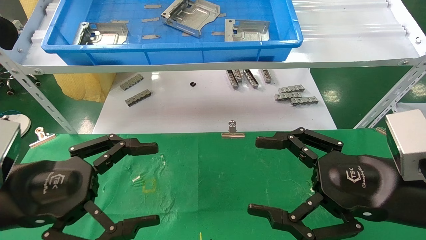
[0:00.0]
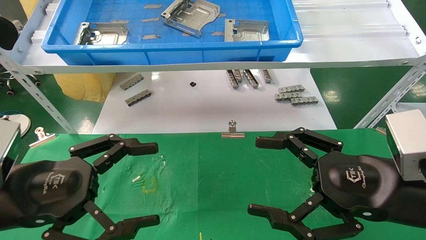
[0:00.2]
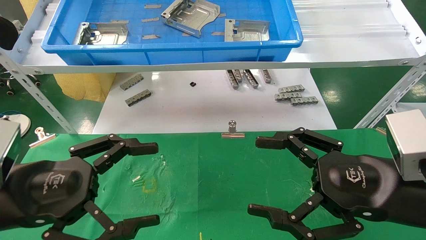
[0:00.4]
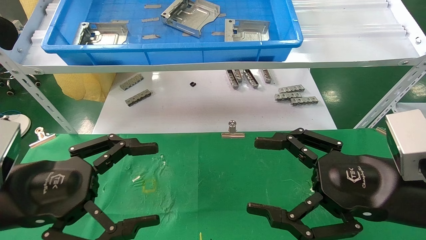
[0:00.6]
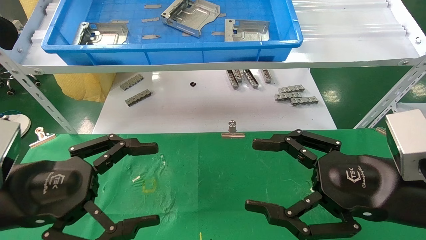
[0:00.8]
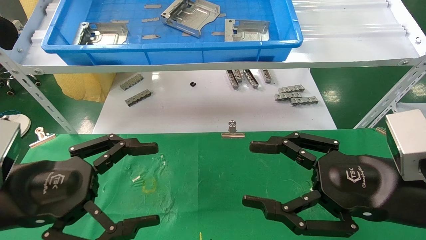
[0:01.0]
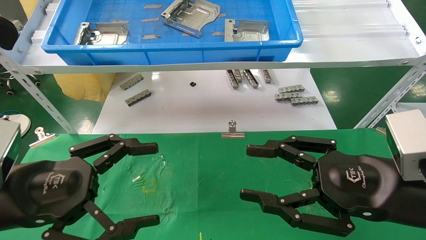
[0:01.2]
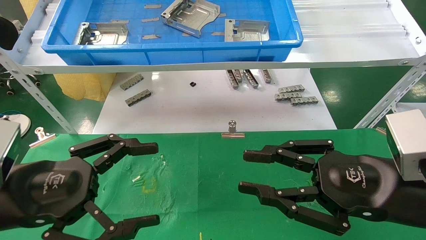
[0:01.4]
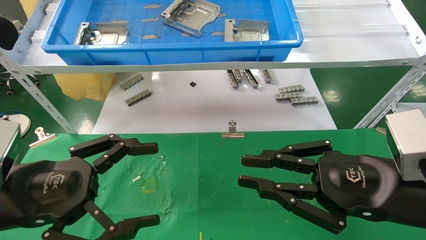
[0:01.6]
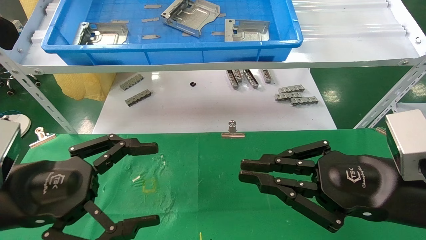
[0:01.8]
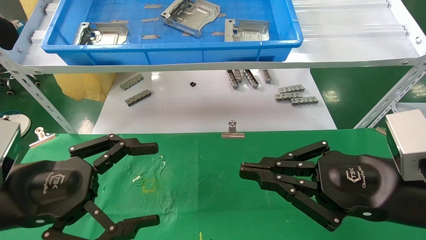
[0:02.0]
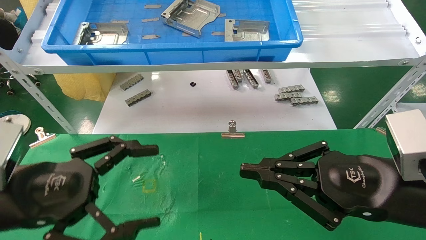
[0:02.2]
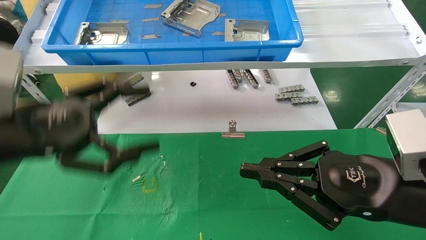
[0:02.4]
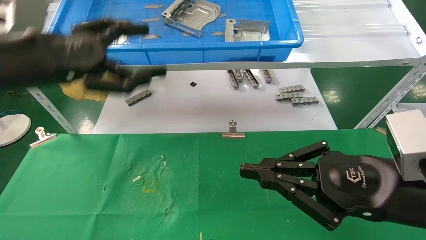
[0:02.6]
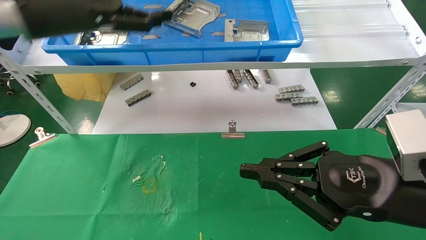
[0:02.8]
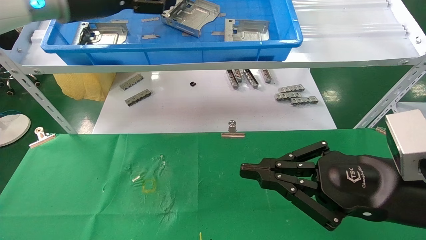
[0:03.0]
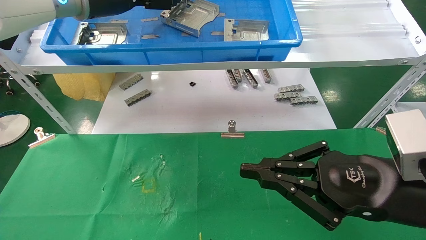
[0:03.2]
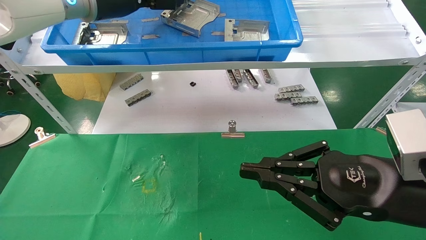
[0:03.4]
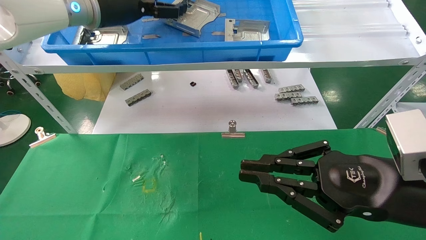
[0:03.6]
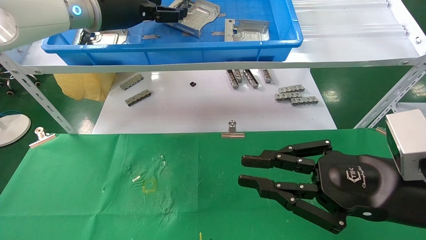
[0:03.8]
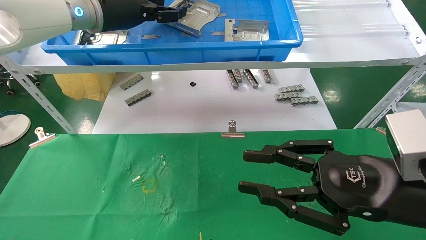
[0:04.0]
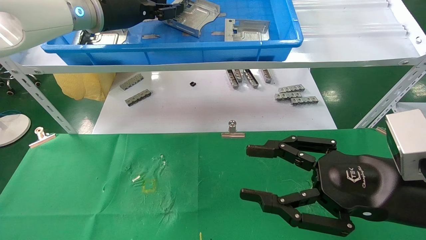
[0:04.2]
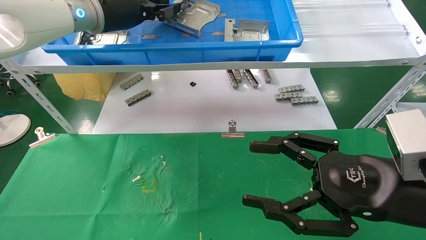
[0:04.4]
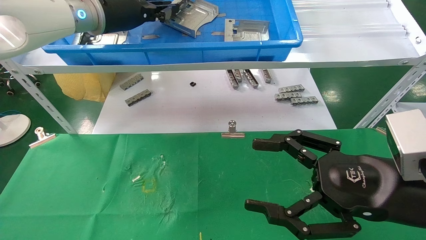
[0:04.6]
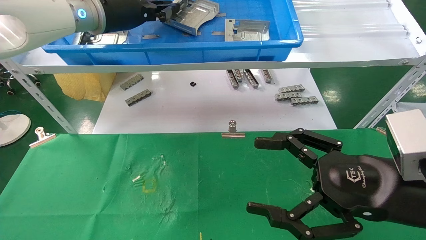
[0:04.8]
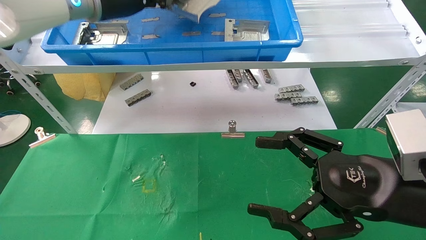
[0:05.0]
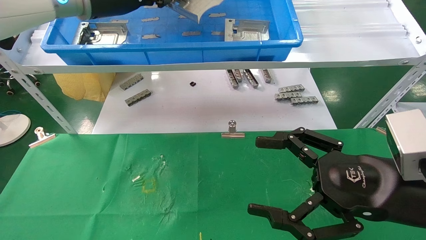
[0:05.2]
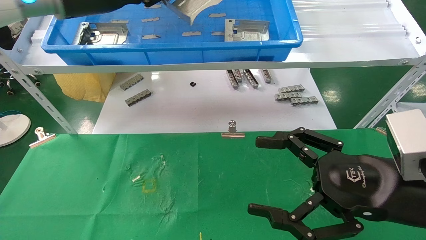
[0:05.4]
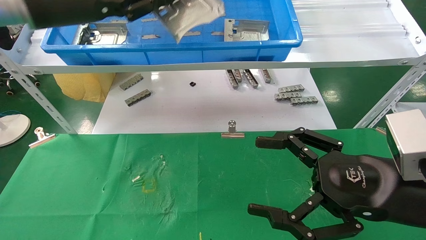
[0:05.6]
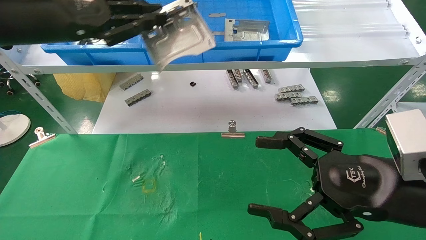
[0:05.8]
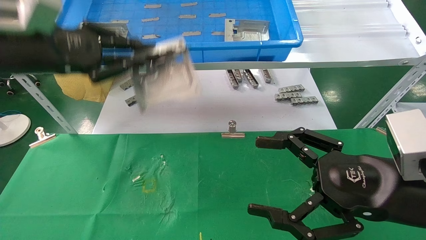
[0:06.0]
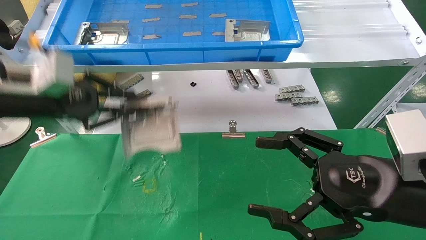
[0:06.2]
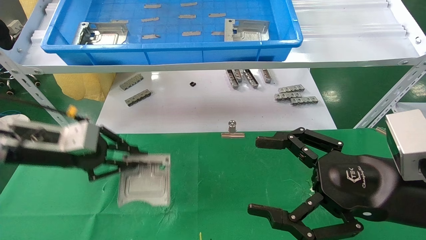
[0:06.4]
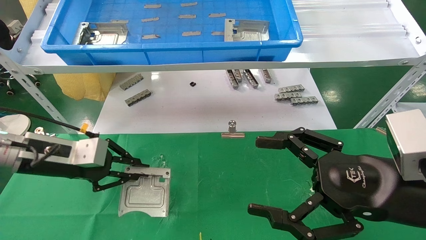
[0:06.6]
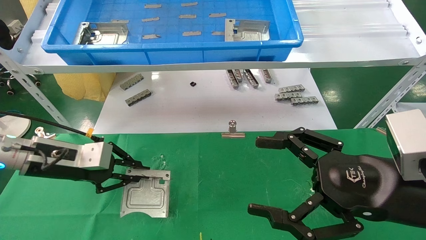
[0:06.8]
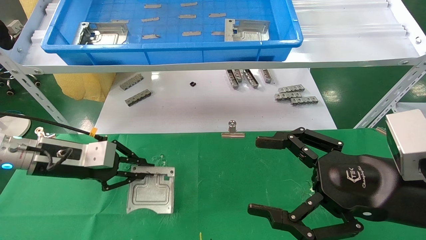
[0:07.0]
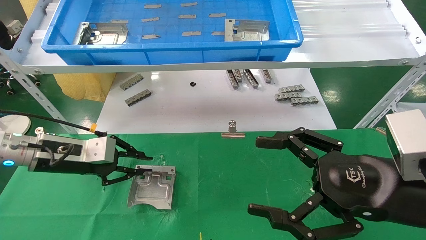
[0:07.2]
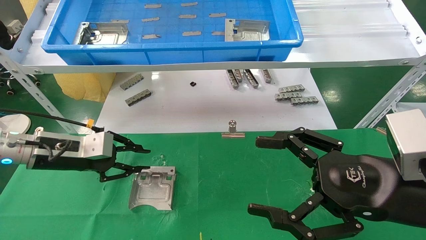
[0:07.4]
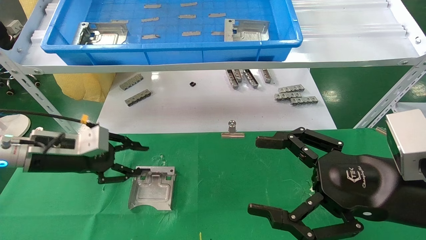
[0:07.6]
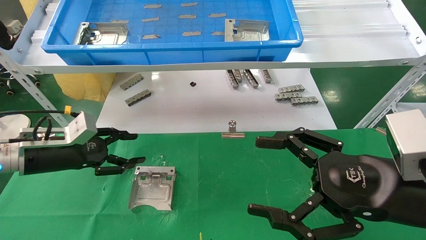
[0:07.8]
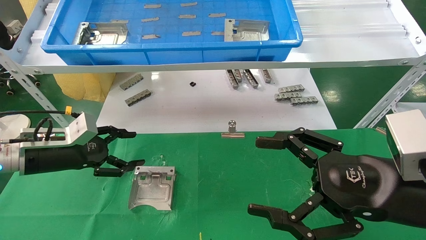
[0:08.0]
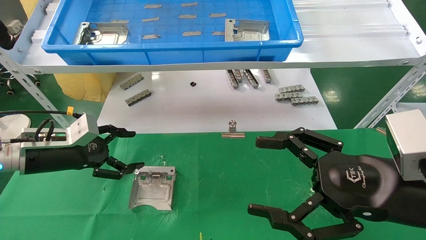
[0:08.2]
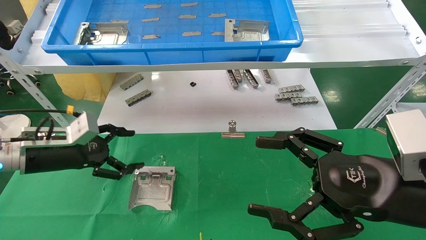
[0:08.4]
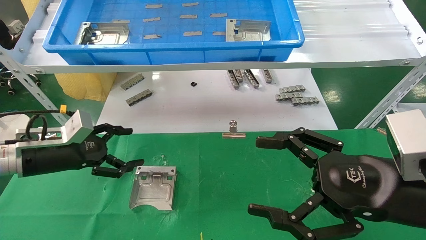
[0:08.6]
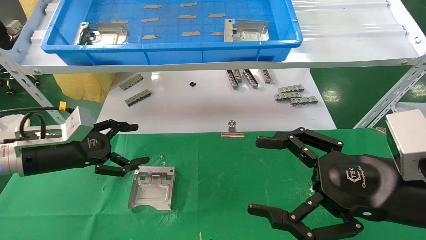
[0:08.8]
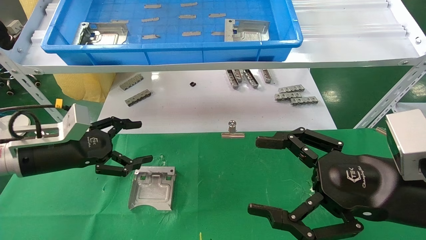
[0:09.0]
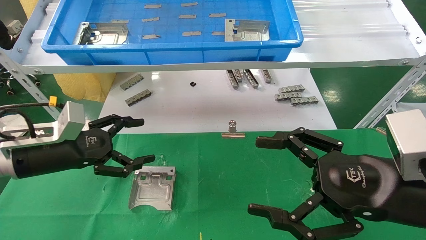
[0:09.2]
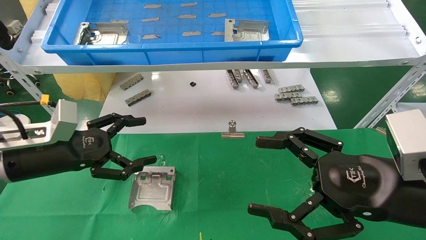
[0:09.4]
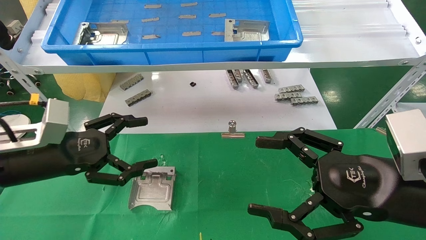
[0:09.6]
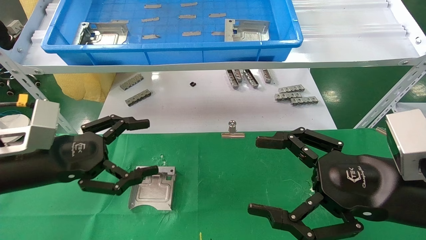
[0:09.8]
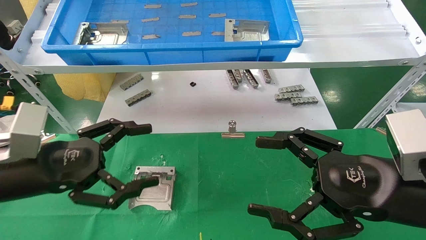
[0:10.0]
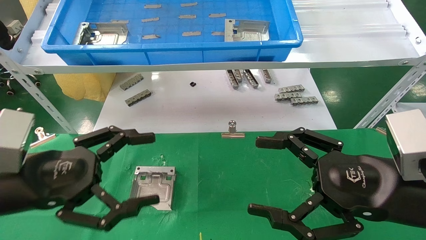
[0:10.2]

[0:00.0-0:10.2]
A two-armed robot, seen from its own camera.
Task of the whole recording: use the mechanical arm to pick up the parts and place them on the table.
Step, 0:02.4 to 0:04.6: Pick up the hard drive bracket from the feeding area.
Step, 0:04.8 to 0:07.6: Place the hard drive bracket into the box.
0:00.0 to 0:01.4: The right gripper closes up.
0:01.4 to 0:03.0: The right gripper closes up; the left gripper is displaced upward and forward by some 30 cm.
0:03.0 to 0:04.4: The left gripper moves roughly 5 cm, and closes. The right gripper opens.
0:04.4 to 0:05.8: The right gripper opens. Meanwhile the left gripper heads backward and to the left, covering approximately 15 cm.
0:05.8 to 0:07.2: The left gripper is displaced downward by some 20 cm.
0:07.2 to 0:08.8: The left gripper opens its fingers.
0:08.8 to 0:10.2: The left gripper is displaced backward by approximately 15 cm.

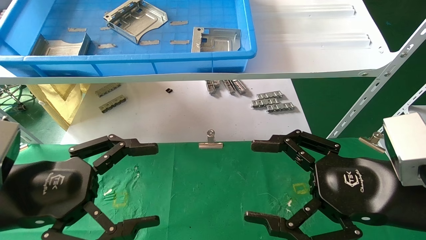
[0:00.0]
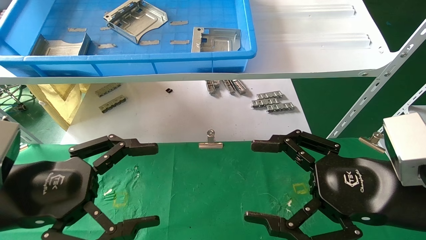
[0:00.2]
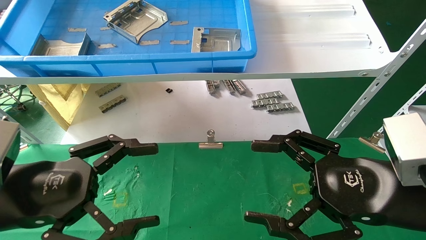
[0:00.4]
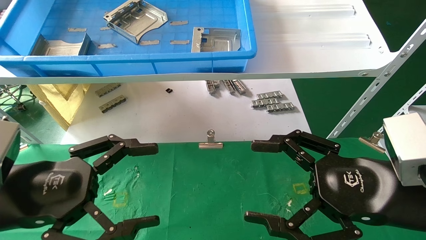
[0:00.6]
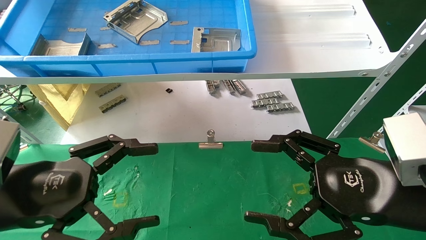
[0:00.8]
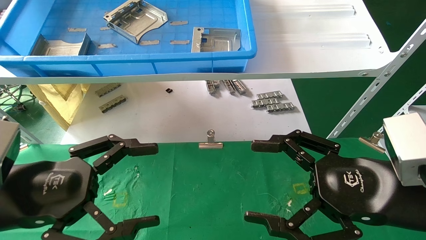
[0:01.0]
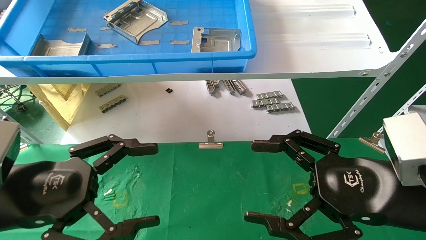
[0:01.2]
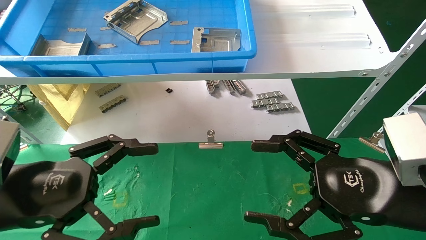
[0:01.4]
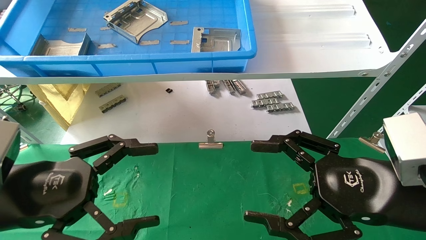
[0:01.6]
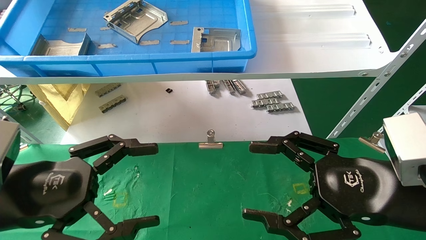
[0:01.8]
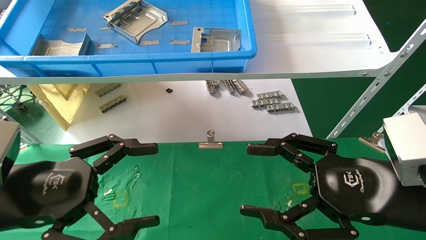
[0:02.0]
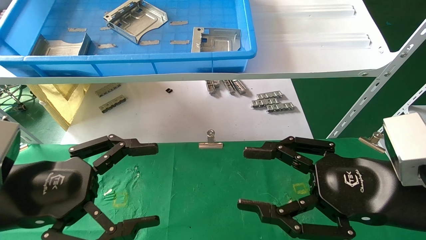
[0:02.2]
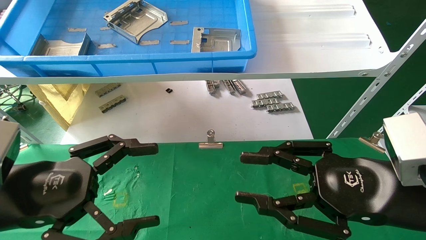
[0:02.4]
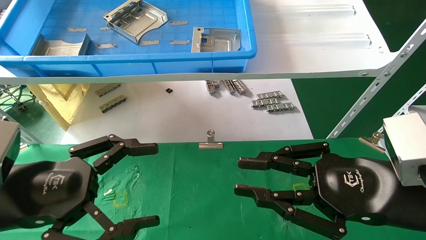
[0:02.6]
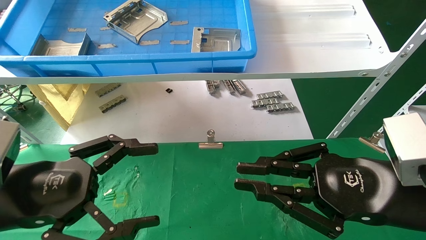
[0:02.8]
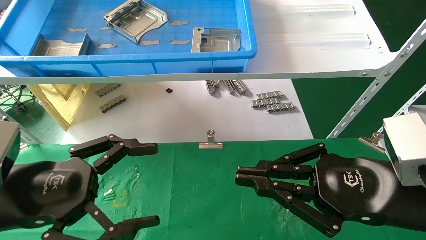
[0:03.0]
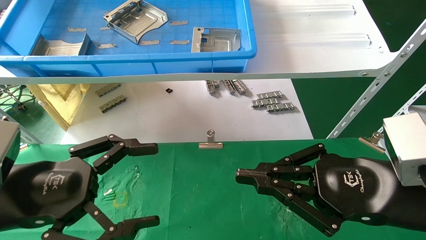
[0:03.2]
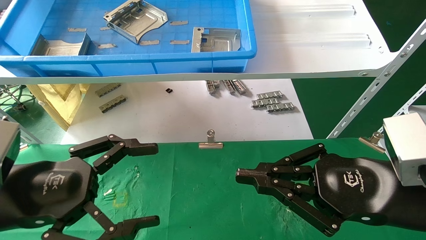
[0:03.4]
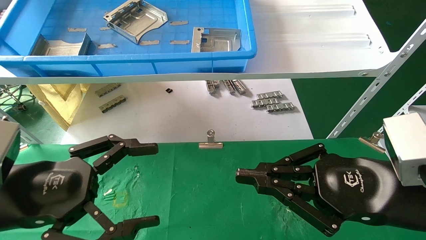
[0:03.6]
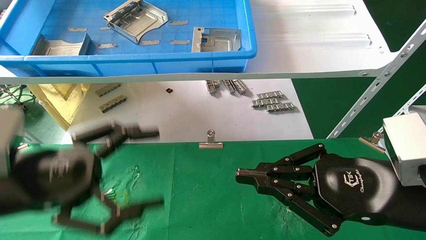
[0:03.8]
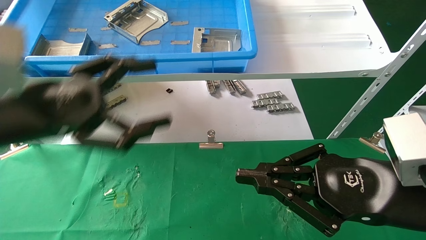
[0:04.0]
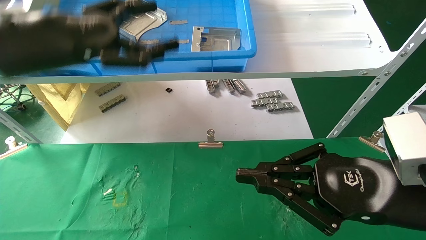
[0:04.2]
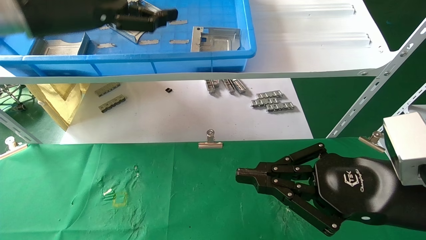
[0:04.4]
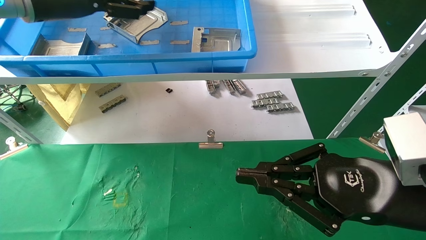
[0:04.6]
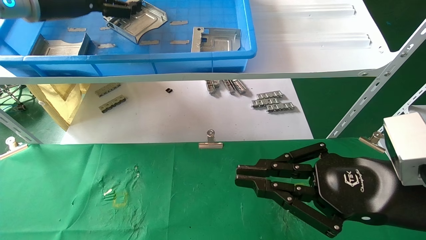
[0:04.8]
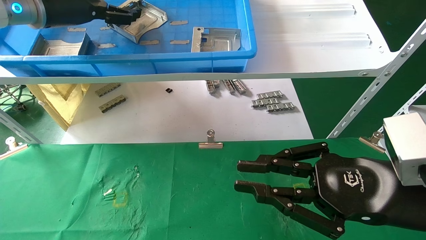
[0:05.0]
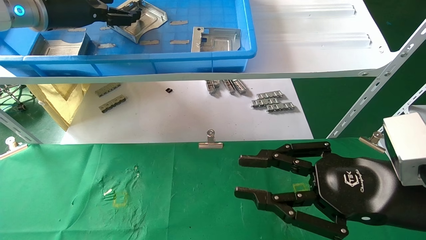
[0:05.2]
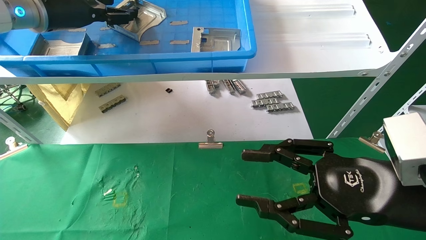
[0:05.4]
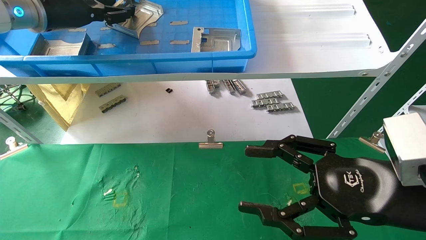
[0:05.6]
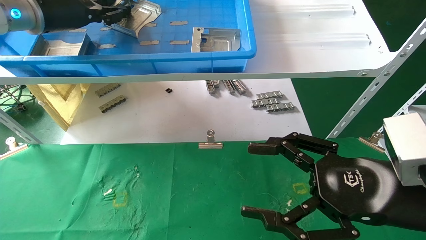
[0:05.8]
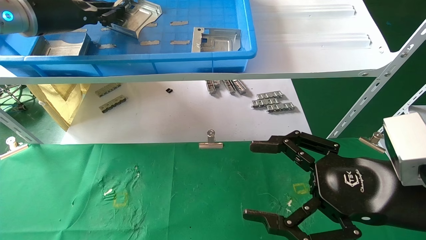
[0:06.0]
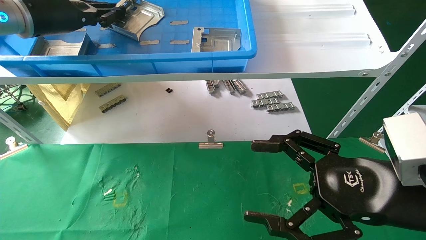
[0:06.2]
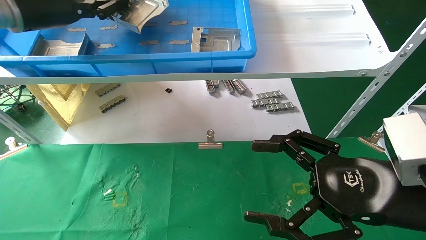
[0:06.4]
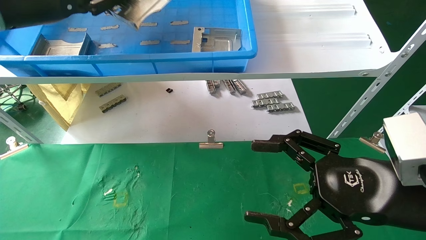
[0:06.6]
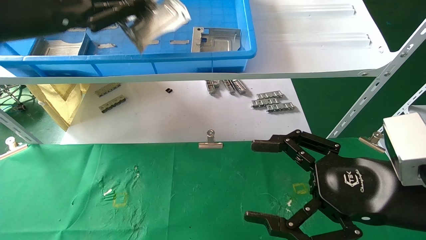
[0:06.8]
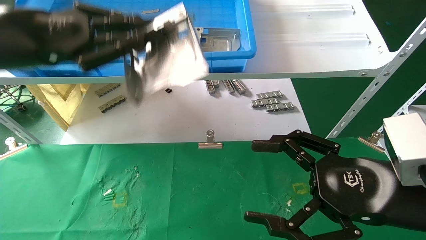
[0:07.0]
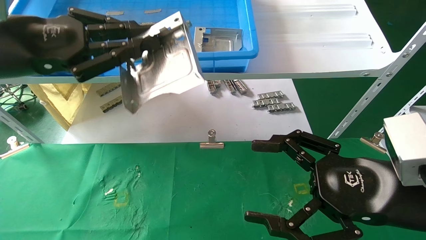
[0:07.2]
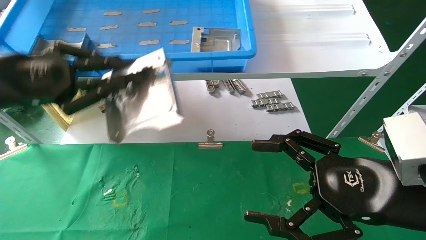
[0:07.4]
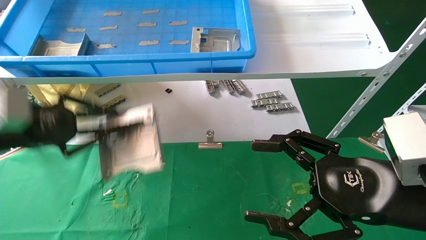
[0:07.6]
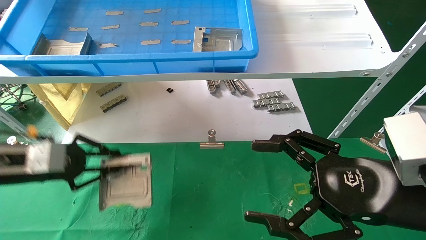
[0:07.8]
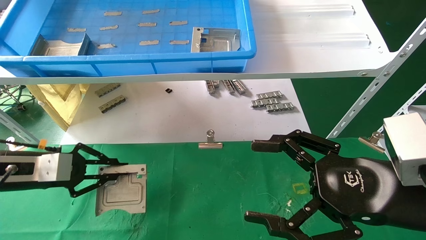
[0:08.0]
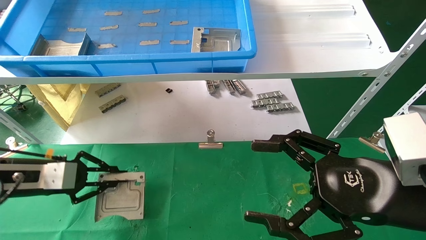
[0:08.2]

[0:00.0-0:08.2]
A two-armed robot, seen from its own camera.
Task of the whole recording: use the mechanical arm to pick up the parts and place them on the table.
Step, 0:04.0 to 0:06.0: Pick up the hard drive bracket from the feeding area.
0:00.0 to 0:01.6: Both grippers stay put.
0:01.6 to 0:03.2: The right gripper closes its fingers.
0:03.2 to 0:05.0: The left gripper shifts approximately 30 cm upward and forward.
0:05.0 to 0:06.6: The left gripper heads backward, covering approximately 5 cm, and closes up. The right gripper opens its fingers.
0:06.6 to 0:08.2: The left gripper shifts some 25 cm downward.
